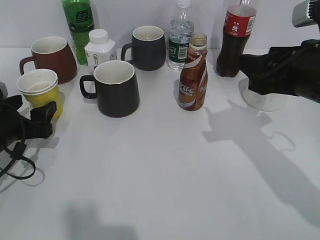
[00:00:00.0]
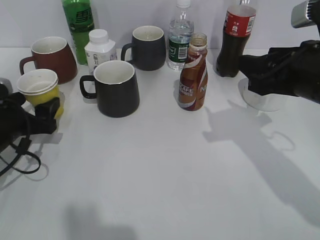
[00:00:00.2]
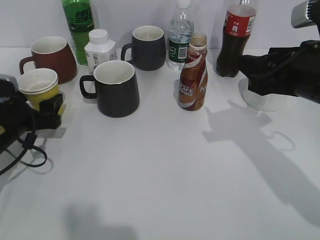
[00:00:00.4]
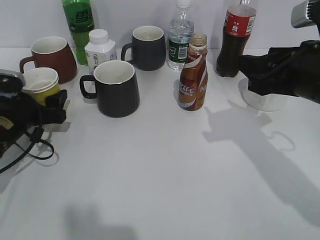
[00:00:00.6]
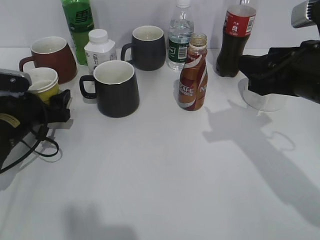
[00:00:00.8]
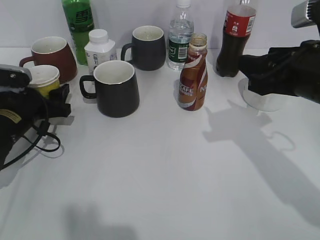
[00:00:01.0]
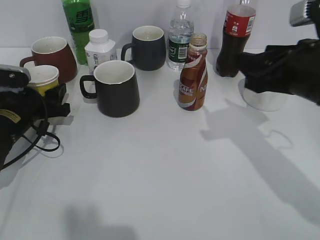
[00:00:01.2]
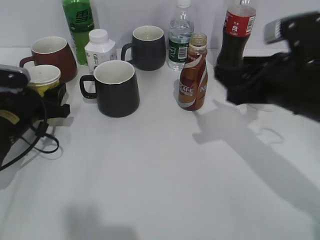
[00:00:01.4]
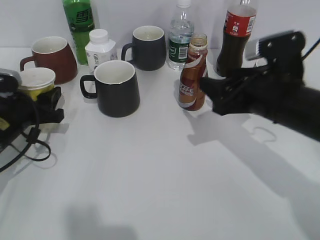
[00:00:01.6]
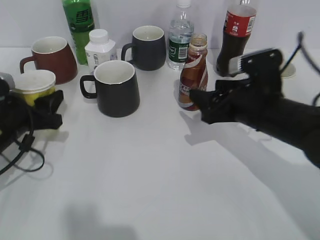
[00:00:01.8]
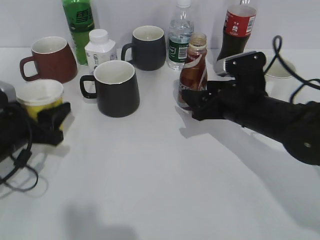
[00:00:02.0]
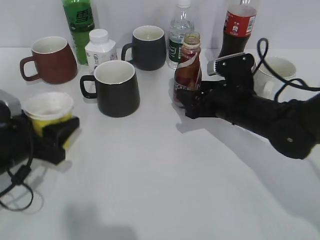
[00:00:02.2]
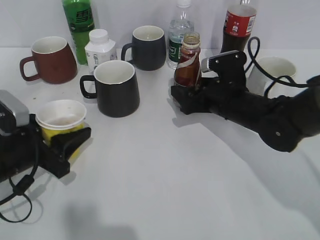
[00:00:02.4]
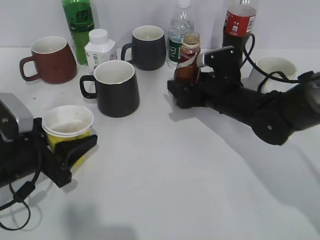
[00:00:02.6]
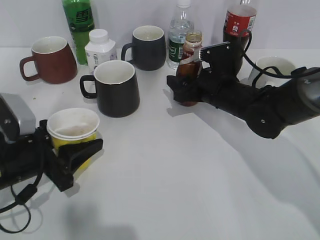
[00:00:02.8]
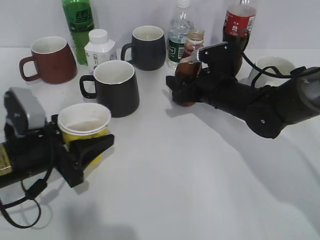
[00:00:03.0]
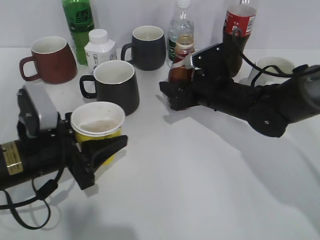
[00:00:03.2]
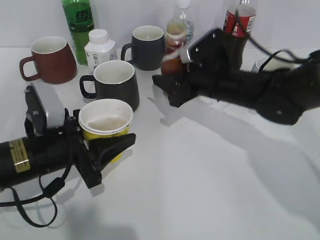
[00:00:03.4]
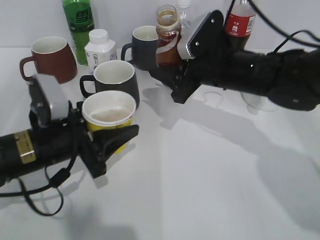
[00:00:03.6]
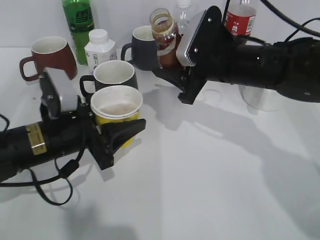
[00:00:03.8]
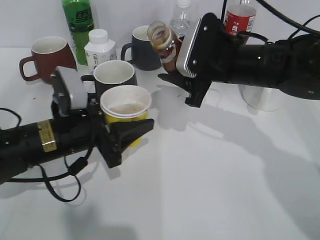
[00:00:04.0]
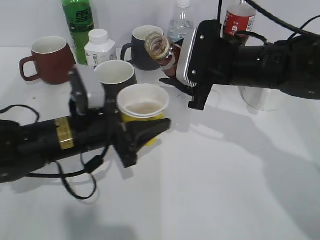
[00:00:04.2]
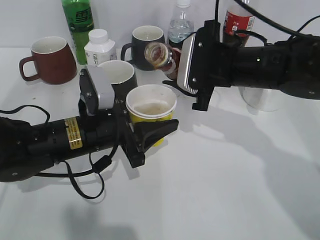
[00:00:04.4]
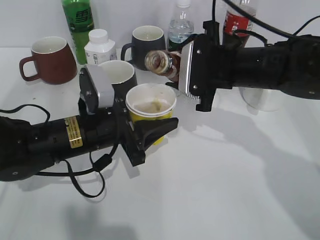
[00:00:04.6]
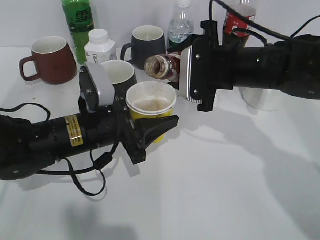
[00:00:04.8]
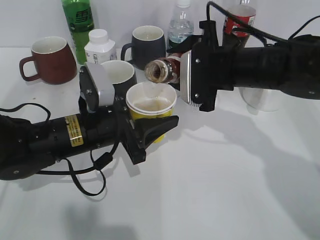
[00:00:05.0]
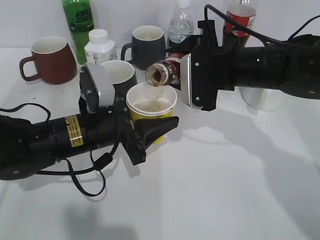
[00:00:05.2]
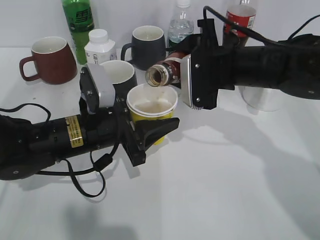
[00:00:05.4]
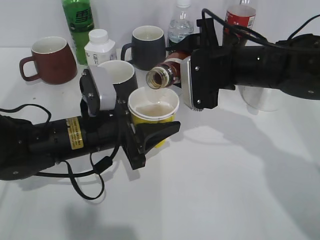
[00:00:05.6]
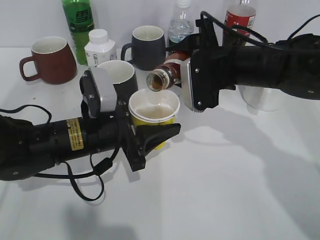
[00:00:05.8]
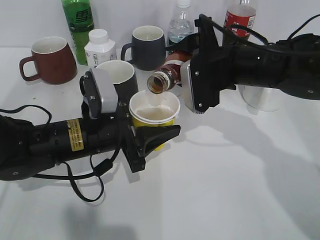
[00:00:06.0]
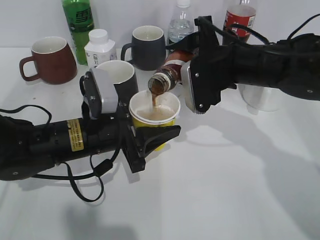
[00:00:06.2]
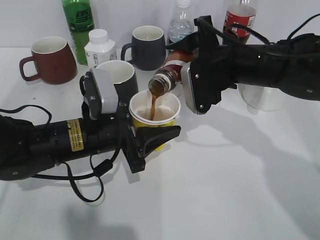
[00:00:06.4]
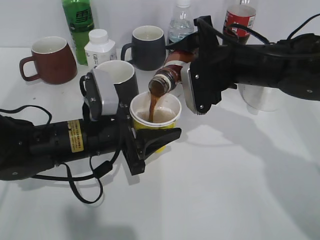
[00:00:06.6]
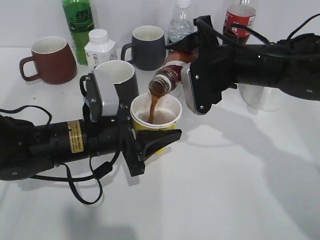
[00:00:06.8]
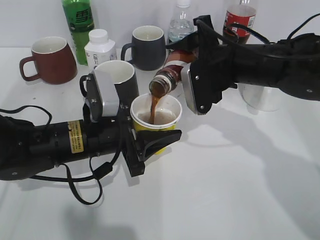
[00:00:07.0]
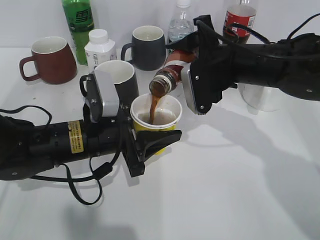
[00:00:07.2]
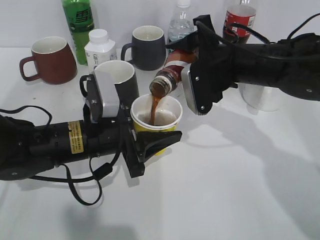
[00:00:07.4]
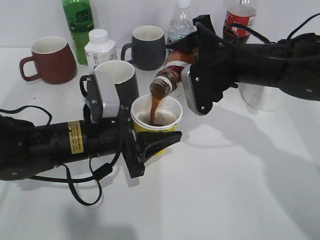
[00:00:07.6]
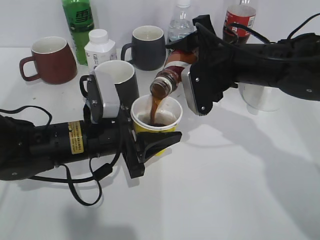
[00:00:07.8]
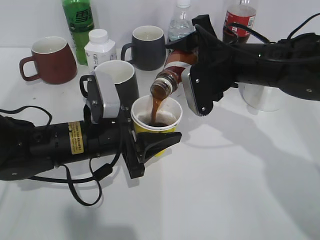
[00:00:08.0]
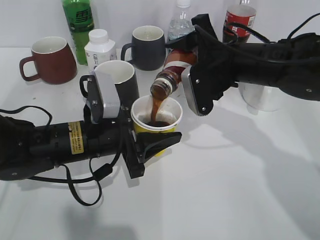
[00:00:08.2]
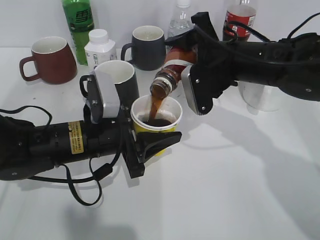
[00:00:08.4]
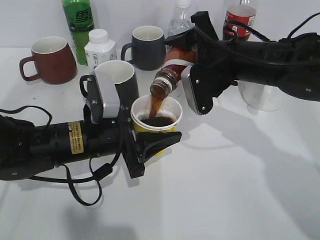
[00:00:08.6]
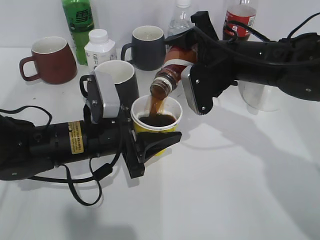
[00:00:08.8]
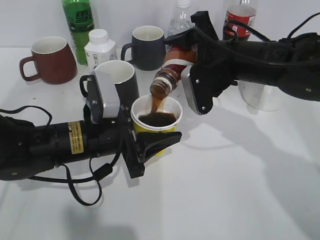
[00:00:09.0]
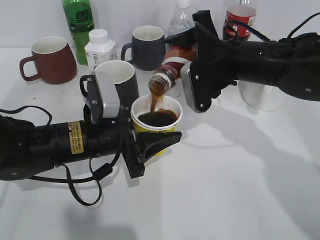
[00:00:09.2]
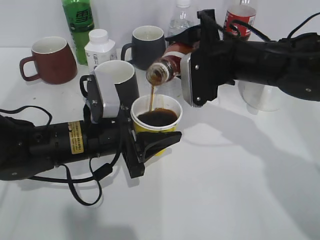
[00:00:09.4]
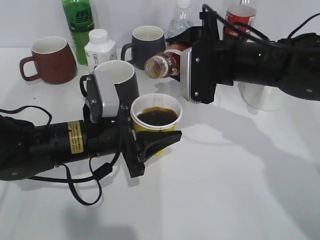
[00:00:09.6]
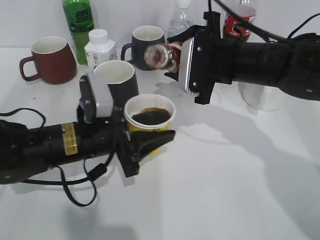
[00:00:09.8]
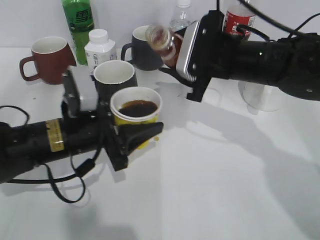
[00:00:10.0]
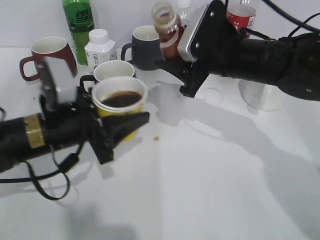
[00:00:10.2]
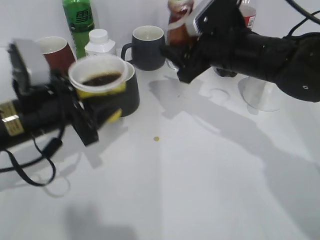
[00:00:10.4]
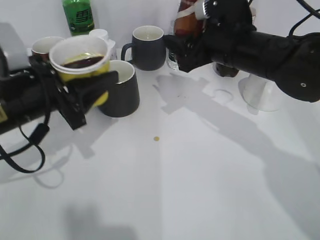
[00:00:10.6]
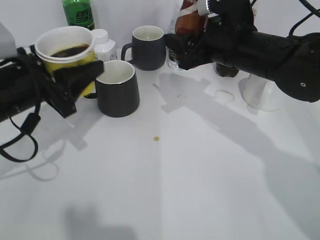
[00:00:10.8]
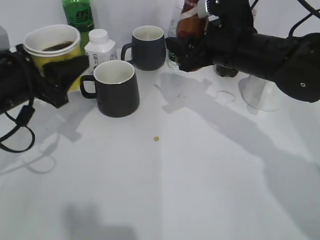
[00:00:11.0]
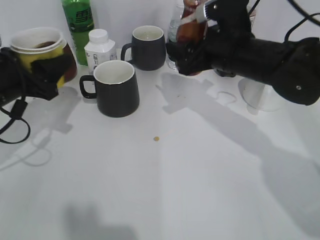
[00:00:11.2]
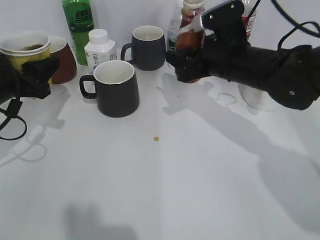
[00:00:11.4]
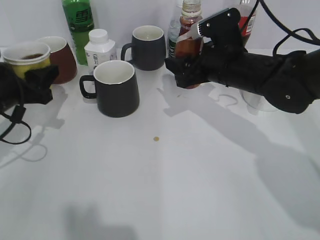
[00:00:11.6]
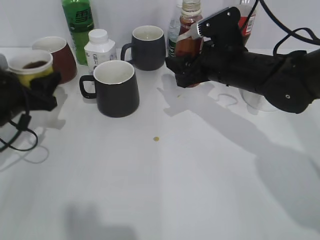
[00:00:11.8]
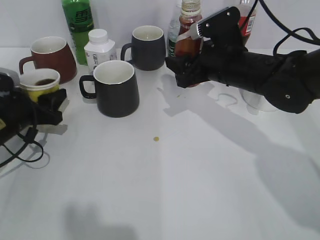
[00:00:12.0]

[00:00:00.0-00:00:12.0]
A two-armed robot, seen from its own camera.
Step, 00:00:01.4 to 00:00:02.8: Grasp the bottle with coffee with right gripper.
Step, 00:00:03.0 to 00:00:09.6: Pour the coffee from bottle to cup with right gripper.
00:00:00.0 to 00:00:01.6: The right gripper shifts by about 5 cm. Meanwhile the left gripper closes up.
00:00:01.6 to 00:00:03.0: The right gripper travels forward, downward and to the left by some 15 cm, and opens, then closes again, while the left gripper shifts roughly 10 cm backward.
00:00:03.0 to 00:00:04.4: The left gripper heads to the right, covering about 10 cm, while the right gripper travels upward by about 10 cm.
00:00:06.0 to 00:00:09.0: The grippers move only a little.
00:00:09.0 to 00:00:10.4: The left gripper is displaced to the left by about 5 cm.
00:00:10.4 to 00:00:12.0: The left gripper heads to the left, forward and downward, covering about 15 cm.

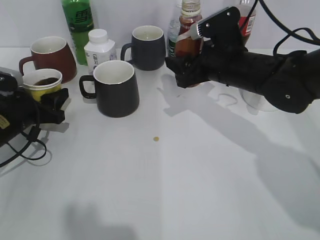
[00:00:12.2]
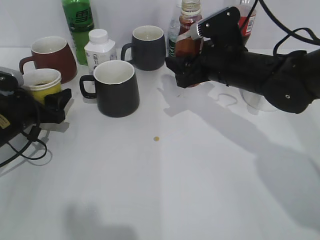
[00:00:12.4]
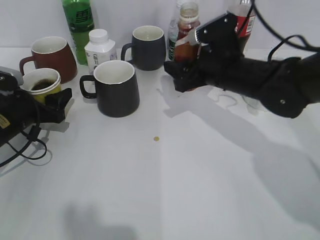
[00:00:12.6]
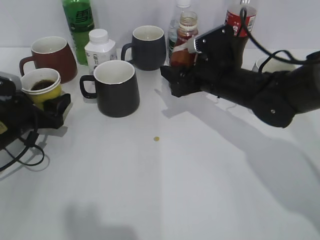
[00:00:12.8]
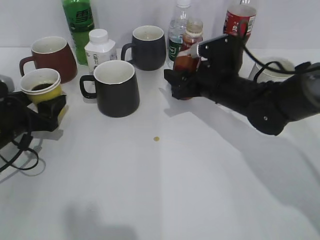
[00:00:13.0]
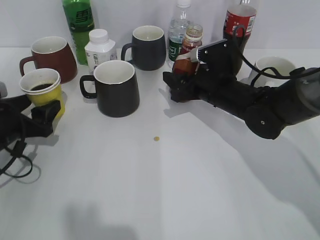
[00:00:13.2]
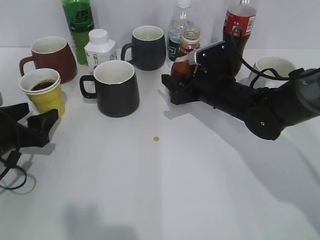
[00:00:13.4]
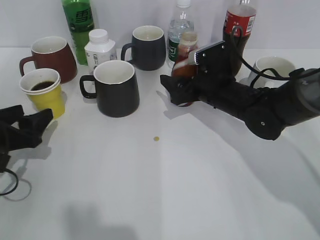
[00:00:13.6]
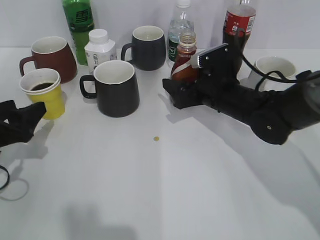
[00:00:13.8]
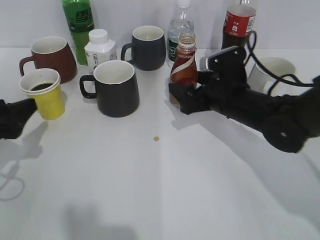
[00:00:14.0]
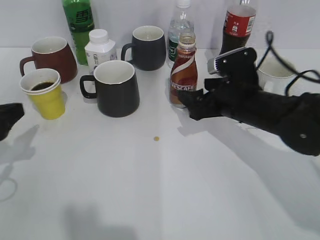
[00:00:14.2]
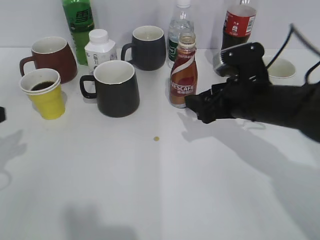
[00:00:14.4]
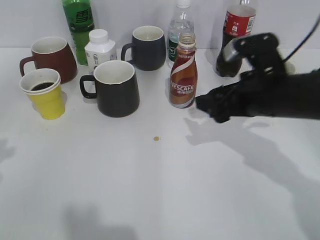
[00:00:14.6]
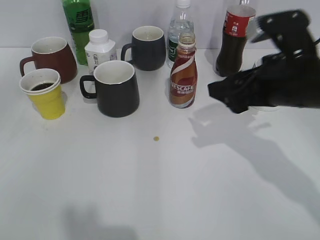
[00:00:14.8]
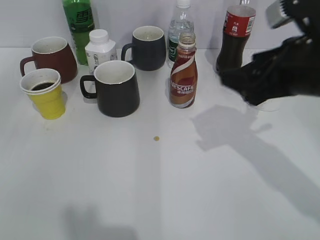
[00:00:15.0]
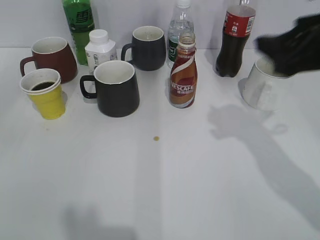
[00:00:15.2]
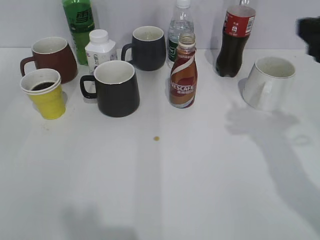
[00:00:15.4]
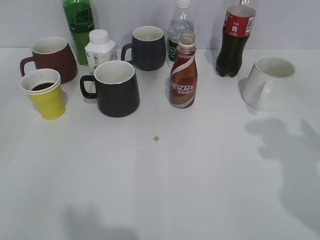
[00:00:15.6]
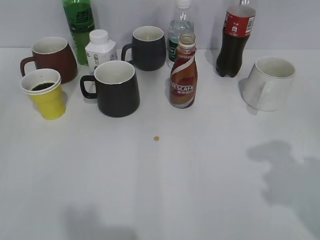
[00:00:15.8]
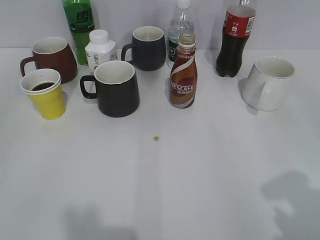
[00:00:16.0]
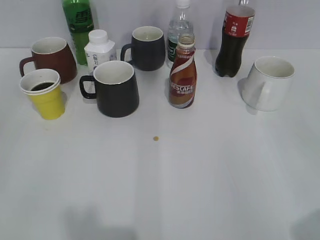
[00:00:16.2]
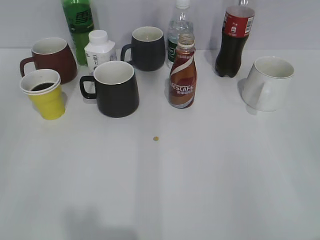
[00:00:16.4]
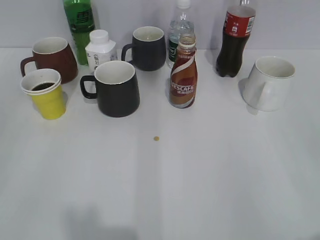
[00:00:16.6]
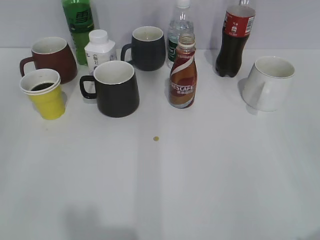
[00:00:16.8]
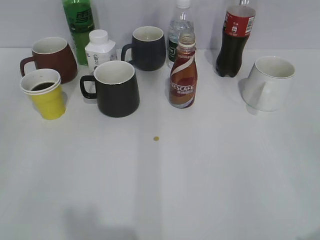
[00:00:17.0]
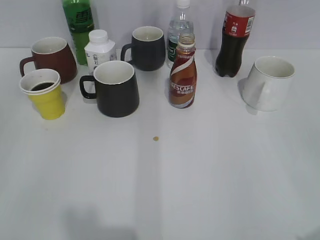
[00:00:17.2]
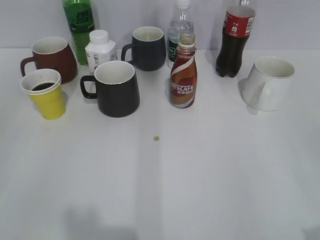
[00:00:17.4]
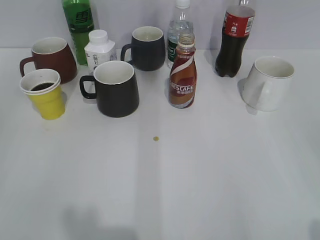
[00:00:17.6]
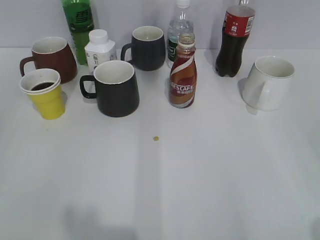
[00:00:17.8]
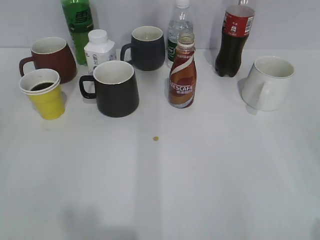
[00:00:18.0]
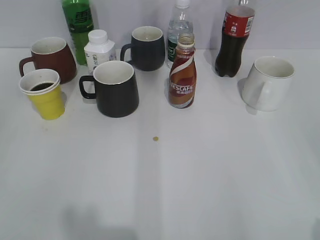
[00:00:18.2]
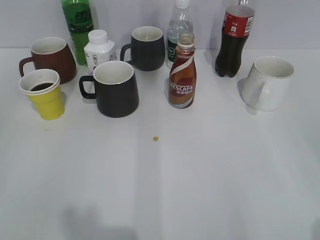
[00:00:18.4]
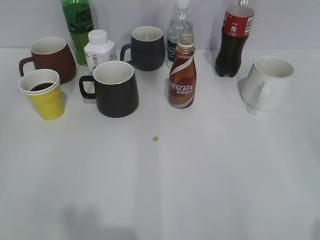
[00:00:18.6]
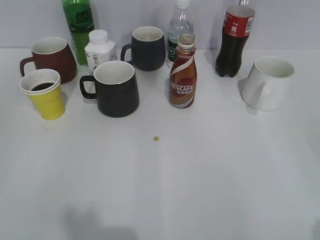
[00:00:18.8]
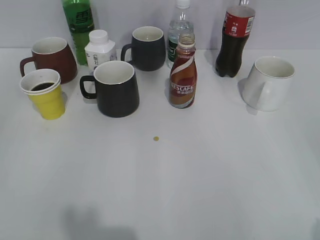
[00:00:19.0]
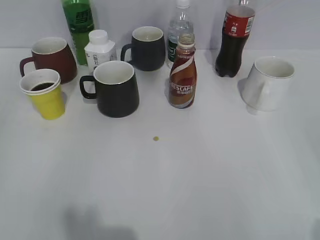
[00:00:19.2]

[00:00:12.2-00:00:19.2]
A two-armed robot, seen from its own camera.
Step, 00:00:13.6 to 00:00:14.2: Place the coffee bottle on the table with right gripper.
00:00:12.2 to 00:00:13.6: The left gripper moves backward, about 5 cm, and opens its fingers. The right gripper shifts roughly 5 cm downward, and opens up.
00:00:13.6 to 00:00:15.0: The right gripper goes roughly 20 cm upward, backward and to the right, while the left gripper moves upward and backward, some 20 cm.
00:00:15.0 to 00:00:16.4: The left gripper goes some 10 cm backward, while the right gripper heads backward and to the right, covering about 25 cm.
00:00:17.8 to 00:00:19.2: Neither gripper changes place.
